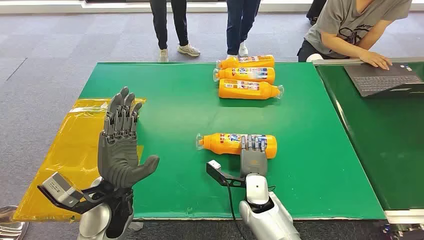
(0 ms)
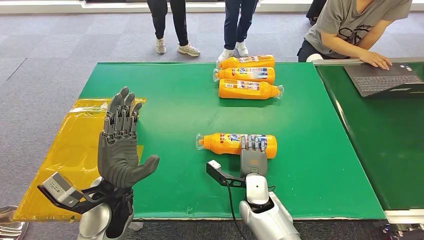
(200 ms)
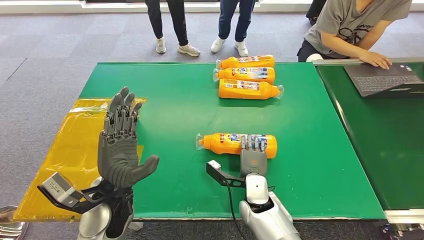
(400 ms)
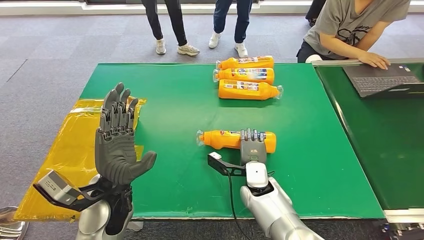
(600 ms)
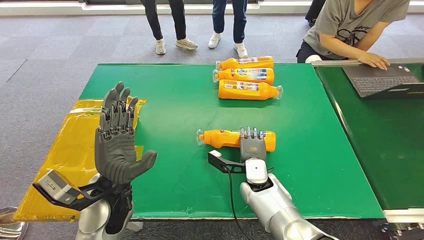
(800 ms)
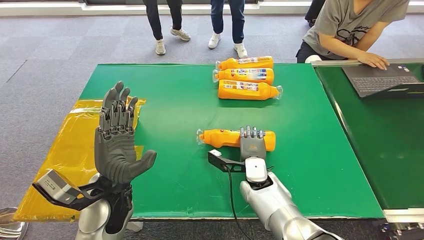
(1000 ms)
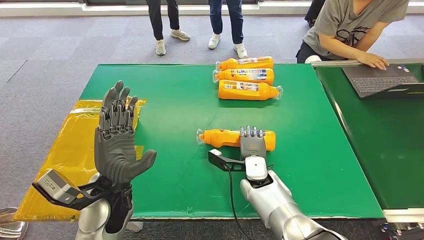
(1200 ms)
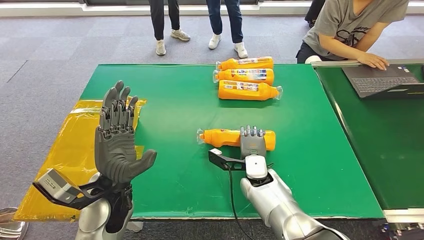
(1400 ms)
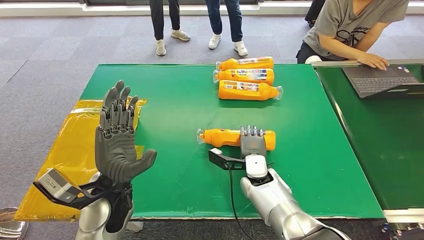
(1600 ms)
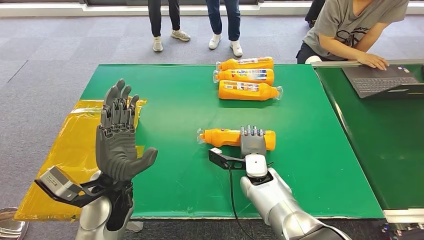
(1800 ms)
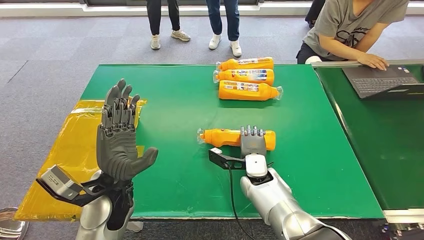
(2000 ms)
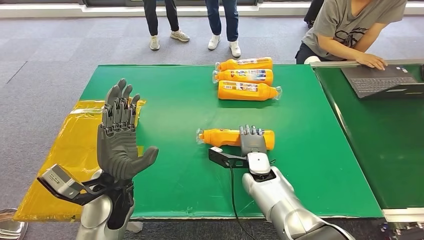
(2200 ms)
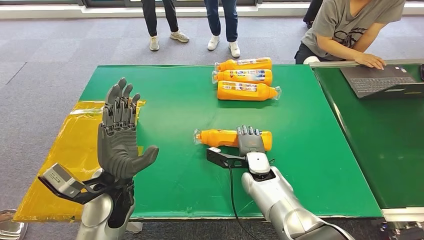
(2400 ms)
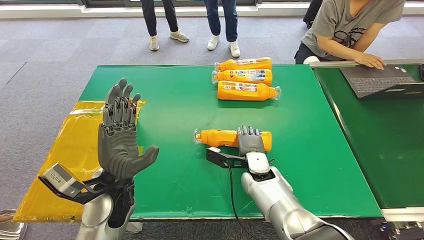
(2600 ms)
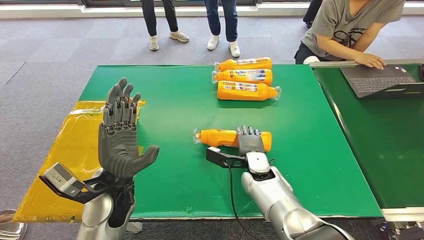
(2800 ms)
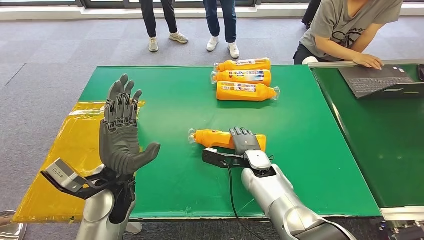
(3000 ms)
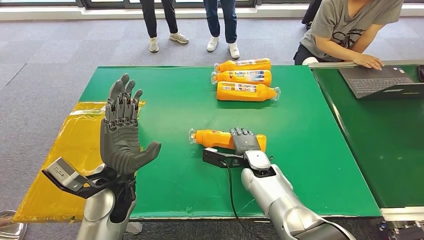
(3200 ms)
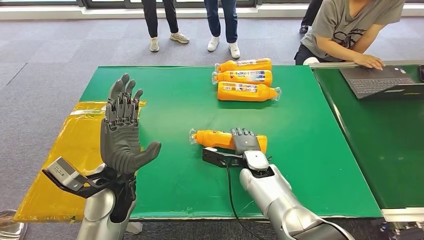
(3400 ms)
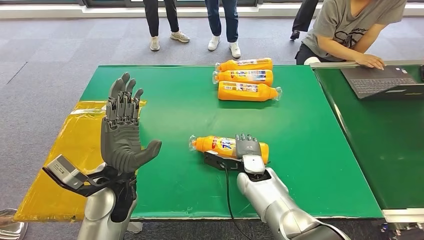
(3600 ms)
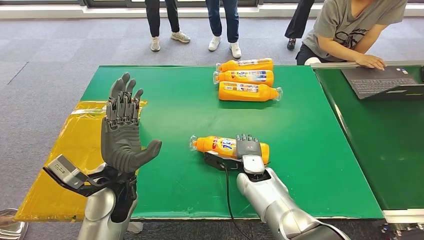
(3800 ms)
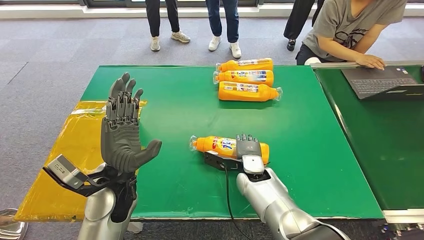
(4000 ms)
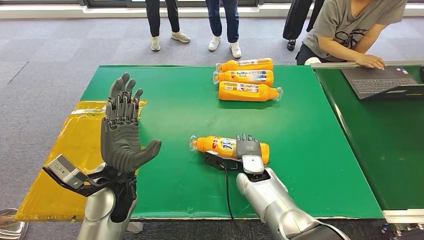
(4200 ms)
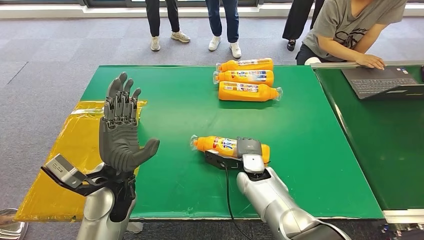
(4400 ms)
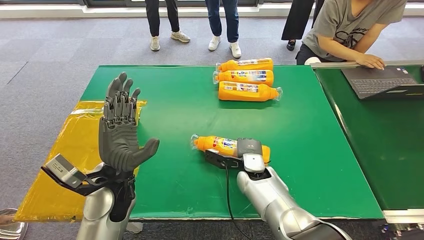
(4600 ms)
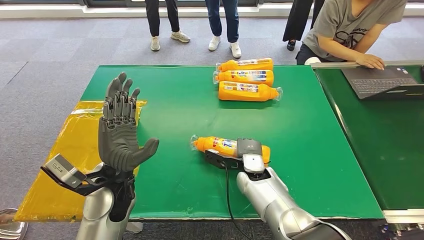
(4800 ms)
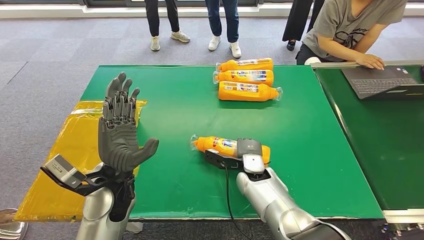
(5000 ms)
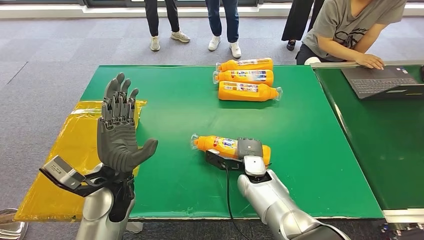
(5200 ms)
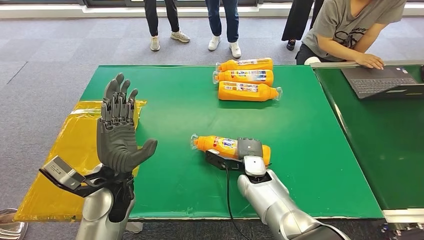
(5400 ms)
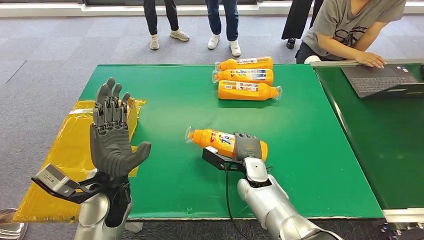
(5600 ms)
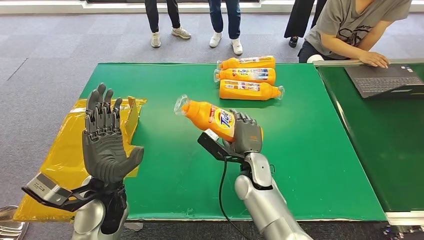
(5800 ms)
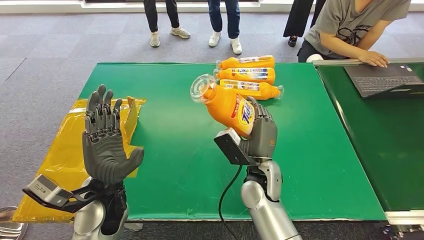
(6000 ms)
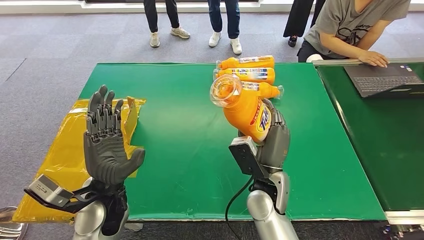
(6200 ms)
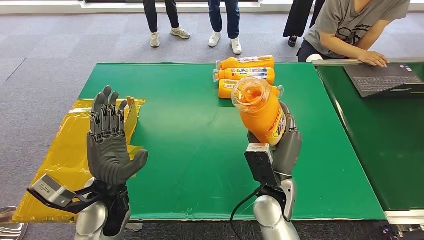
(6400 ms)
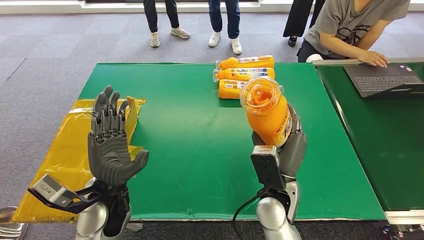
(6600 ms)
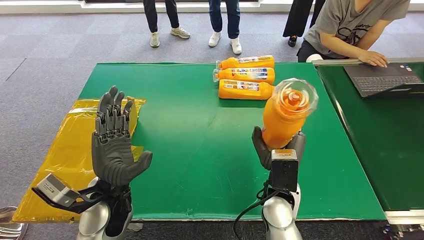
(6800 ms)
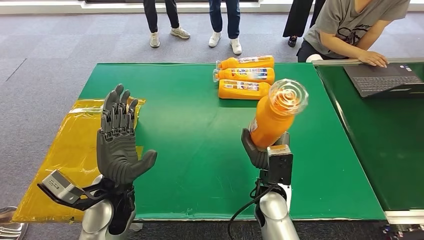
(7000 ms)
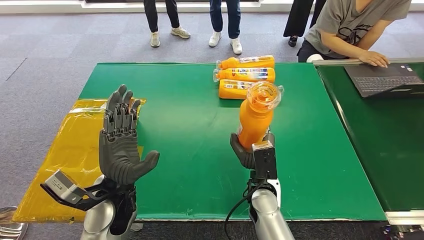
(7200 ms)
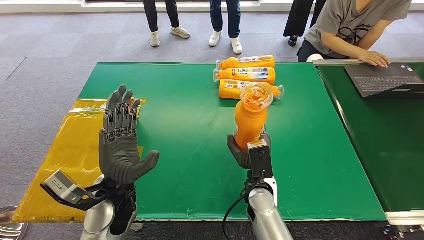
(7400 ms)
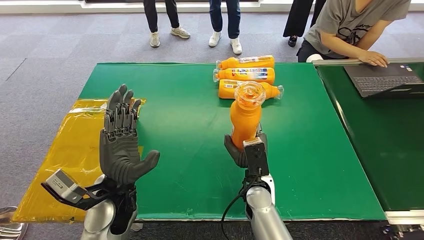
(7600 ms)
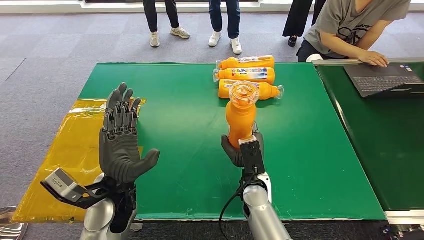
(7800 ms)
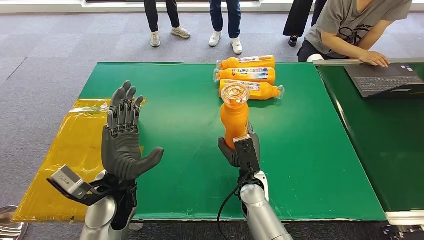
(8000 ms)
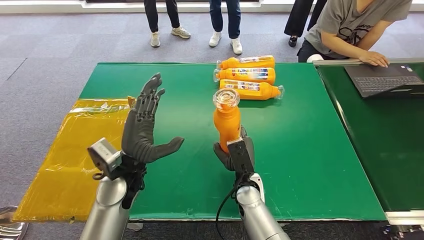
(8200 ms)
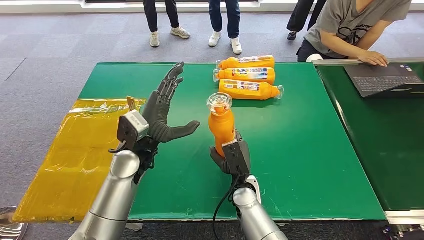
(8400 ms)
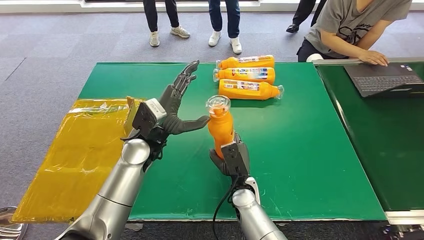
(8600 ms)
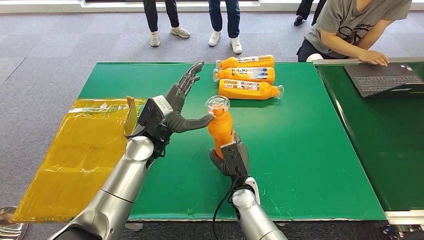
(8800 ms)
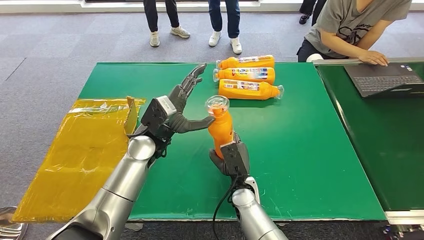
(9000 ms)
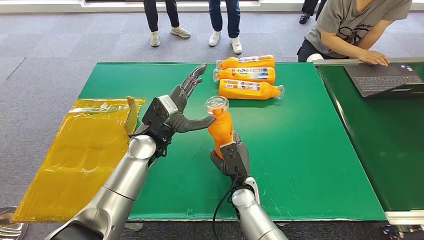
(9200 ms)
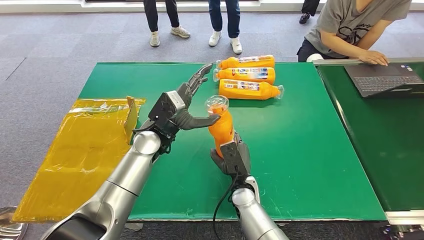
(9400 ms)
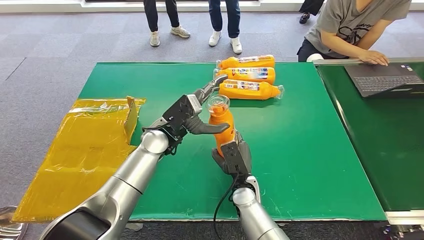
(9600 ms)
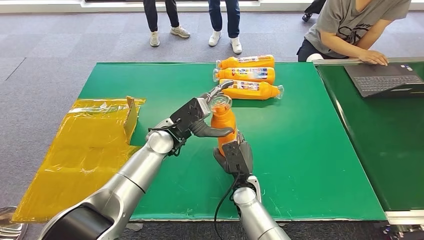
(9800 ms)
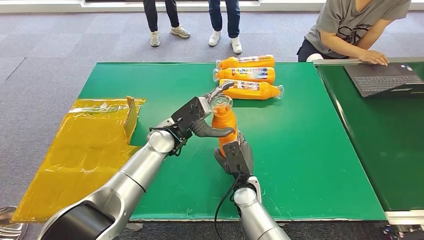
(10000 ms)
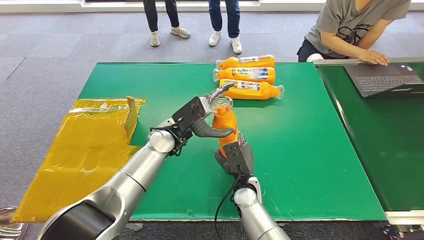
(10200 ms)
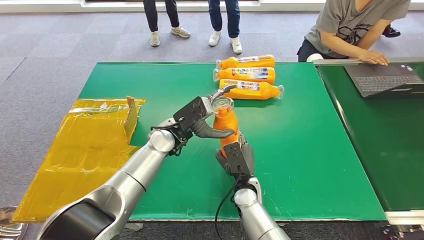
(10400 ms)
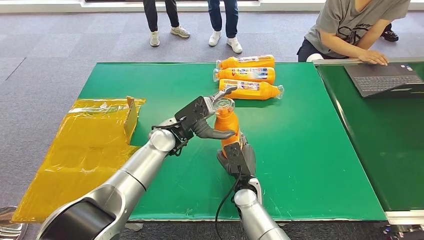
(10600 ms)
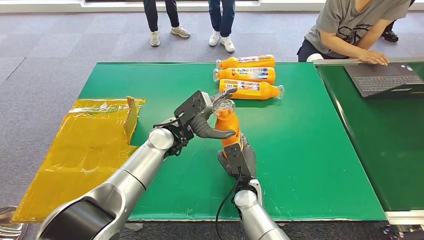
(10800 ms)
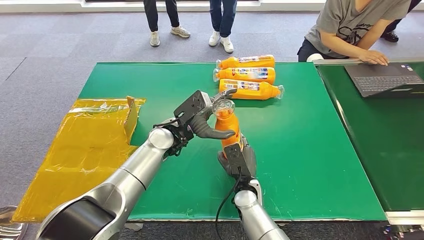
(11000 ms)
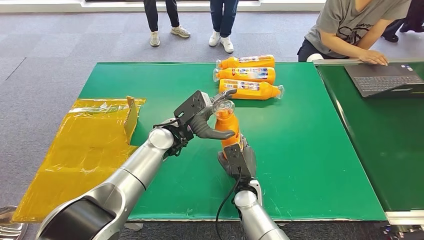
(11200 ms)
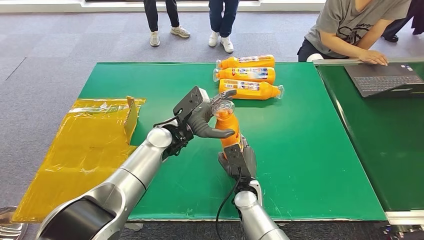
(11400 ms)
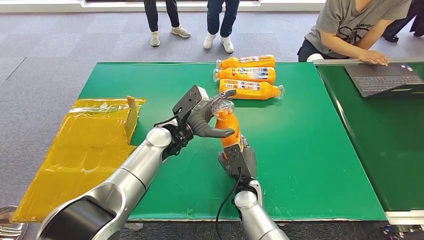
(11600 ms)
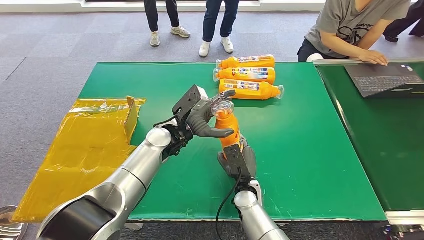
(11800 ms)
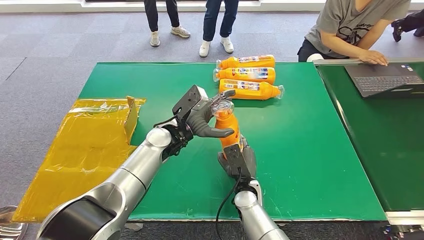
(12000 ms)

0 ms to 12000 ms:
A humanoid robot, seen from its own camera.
Step, 0 ms to 5800 ms: Pick up the bottle from the table.
3000 ms to 4400 ms: The hands move only a little.
7600 ms to 9000 ms: The right hand moves some 5 cm, while the left hand travels forward by about 15 cm.
10400 ms to 12000 ms: The hands stay close to where they were, moving slightly.

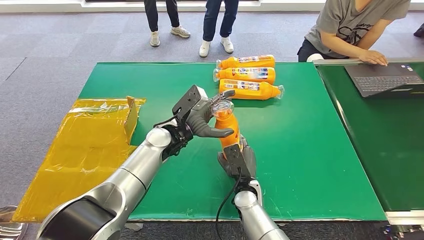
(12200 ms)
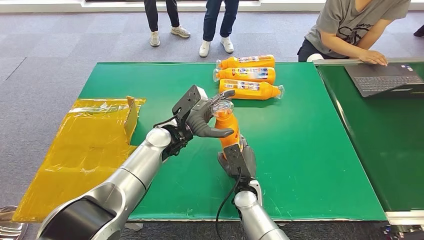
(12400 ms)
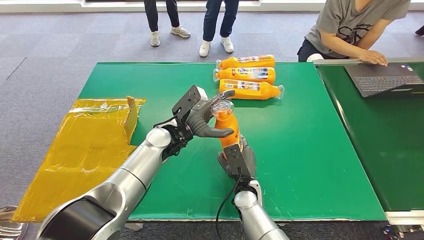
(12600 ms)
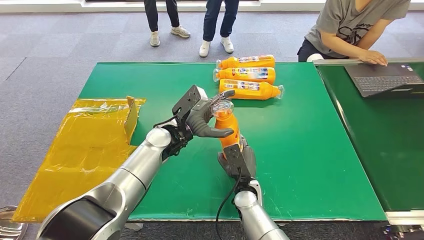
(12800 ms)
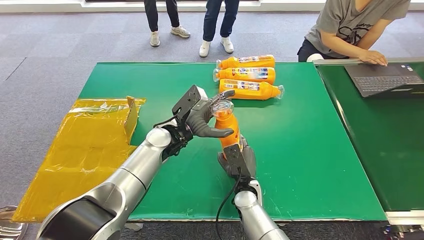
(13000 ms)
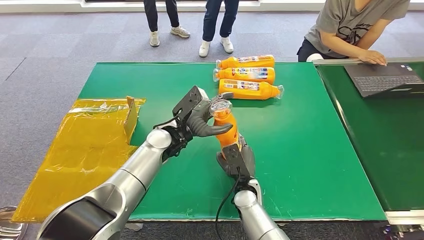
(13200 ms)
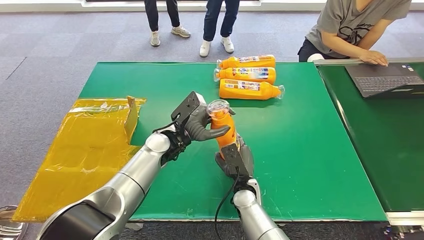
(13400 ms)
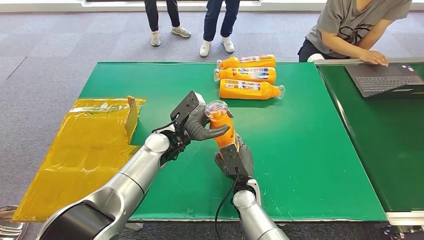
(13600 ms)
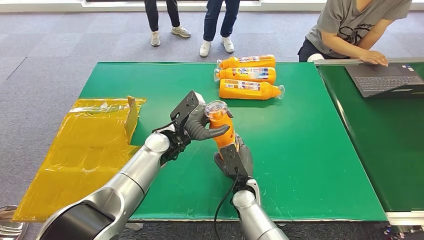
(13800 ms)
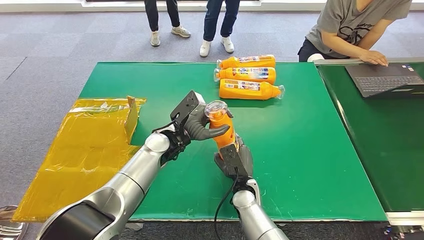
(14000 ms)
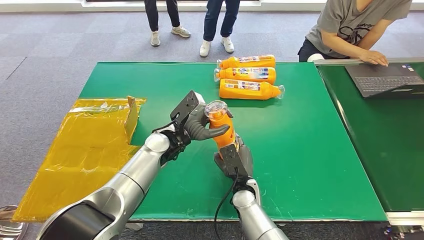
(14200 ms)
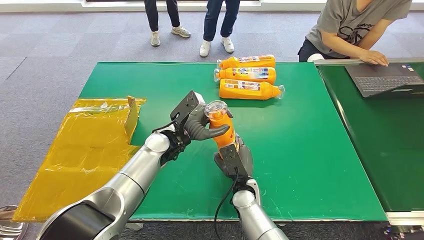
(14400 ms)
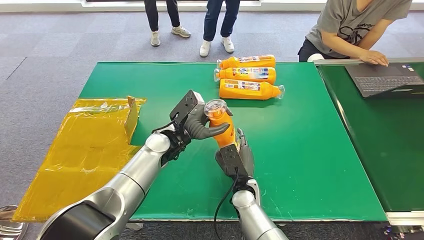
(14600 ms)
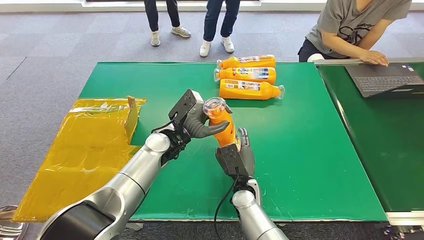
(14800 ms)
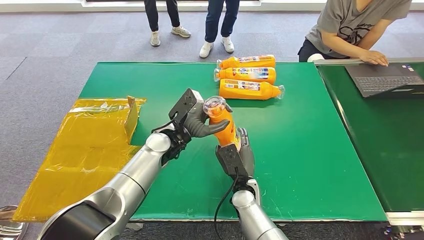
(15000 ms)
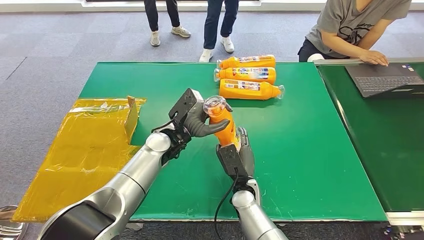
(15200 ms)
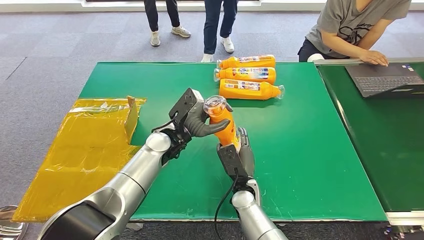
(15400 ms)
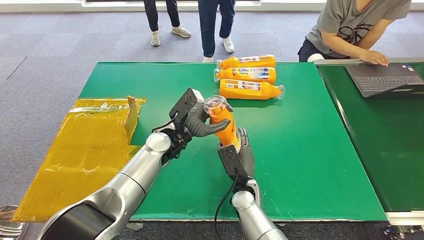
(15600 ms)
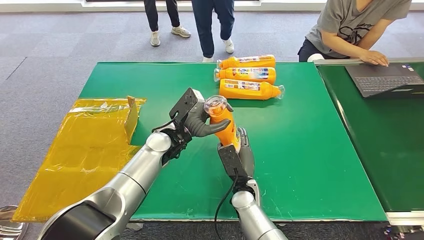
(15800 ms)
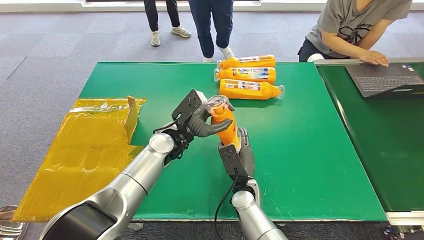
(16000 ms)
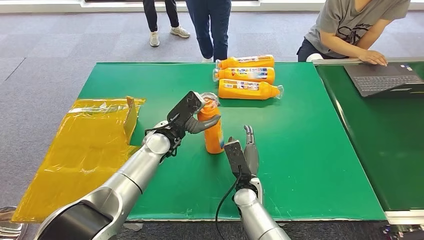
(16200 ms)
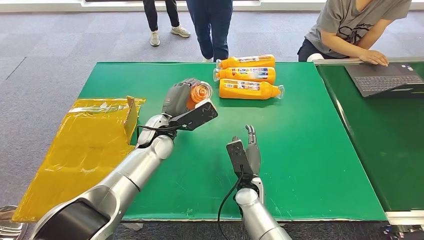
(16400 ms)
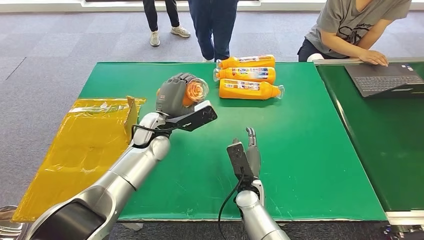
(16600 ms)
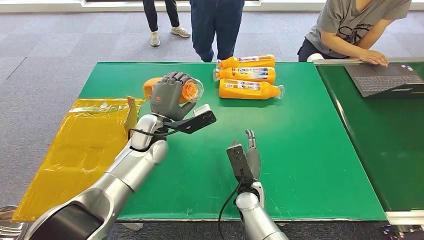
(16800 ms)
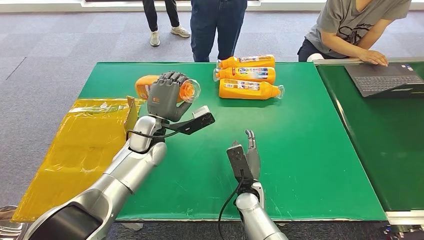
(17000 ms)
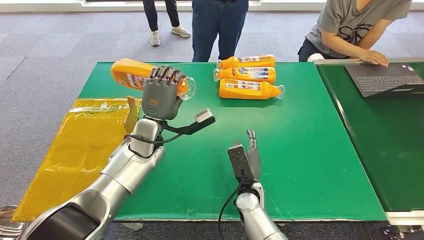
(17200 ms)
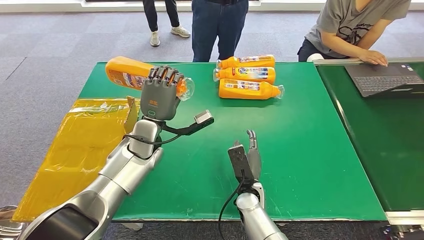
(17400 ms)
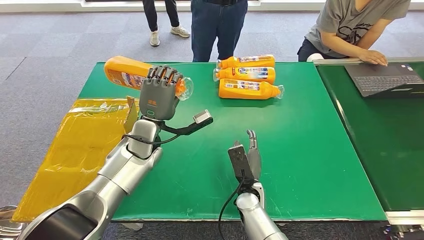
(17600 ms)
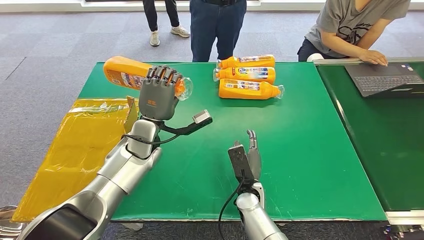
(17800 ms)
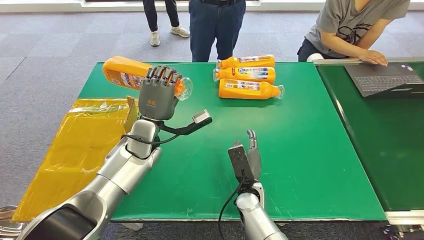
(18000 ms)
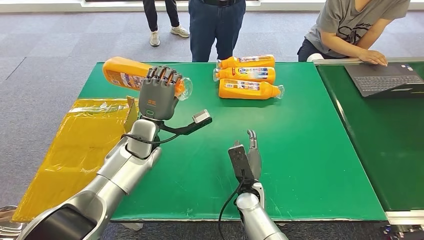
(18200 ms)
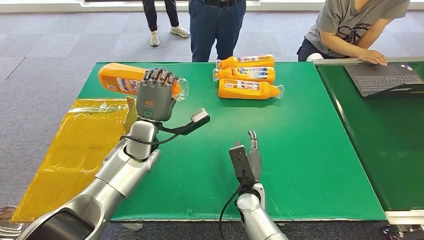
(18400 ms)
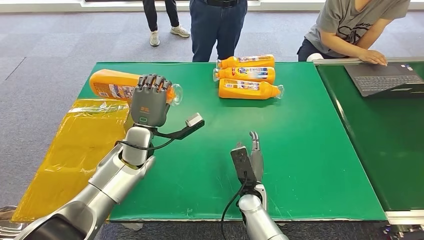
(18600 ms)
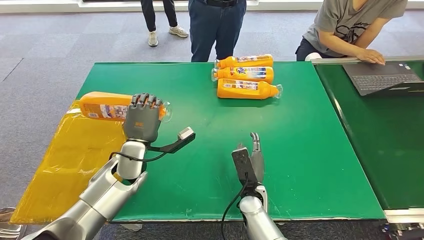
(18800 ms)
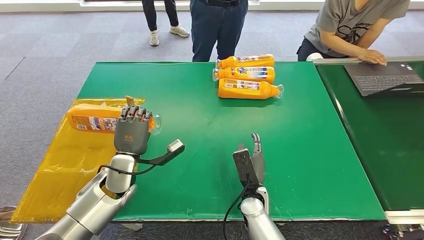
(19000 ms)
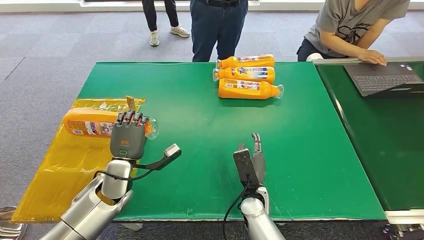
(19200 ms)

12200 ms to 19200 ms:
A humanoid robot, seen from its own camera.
12200 ms to 13600 ms: The hands make only small movements.
13600 ms to 15000 ms: Neither hand changes place.
17800 ms to 19200 ms: The left hand shifts about 15 cm to the left, backward and downward.
